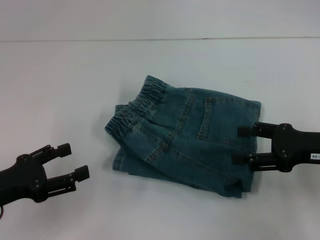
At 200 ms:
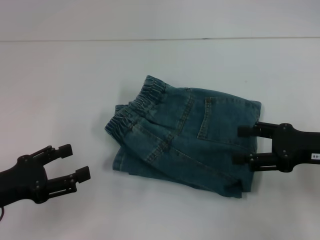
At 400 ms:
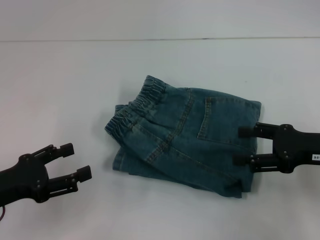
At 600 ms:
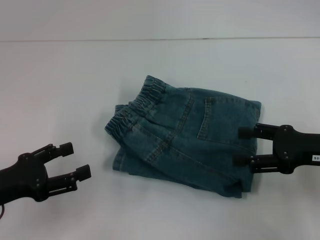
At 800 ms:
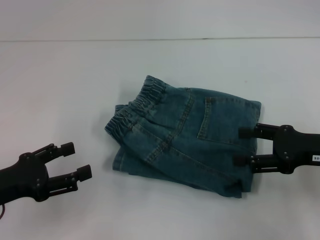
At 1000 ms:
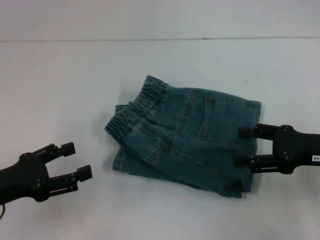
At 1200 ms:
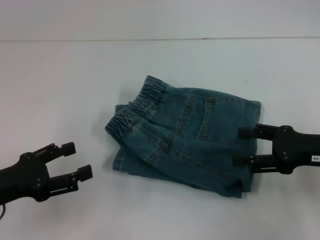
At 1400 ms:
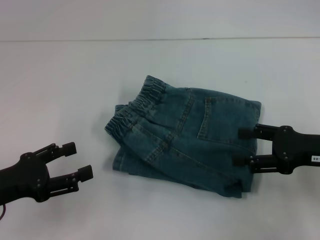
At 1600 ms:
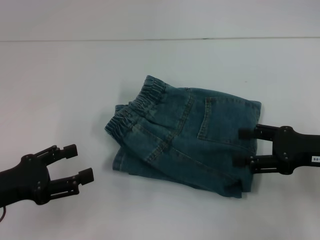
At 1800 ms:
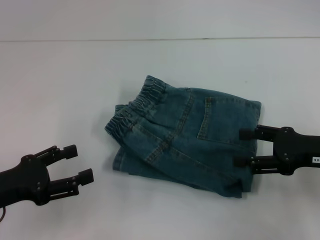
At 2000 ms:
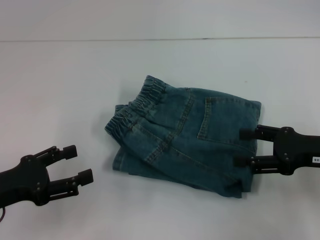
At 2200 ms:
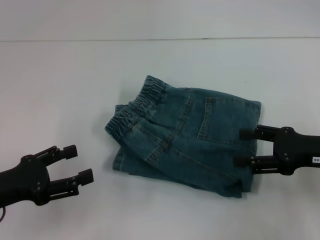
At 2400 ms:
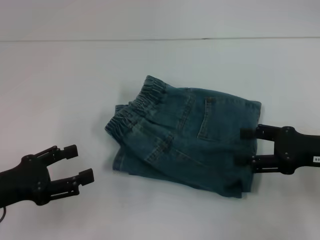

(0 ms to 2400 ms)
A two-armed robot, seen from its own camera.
0 ms - 2400 ms: The two grippers keep their place.

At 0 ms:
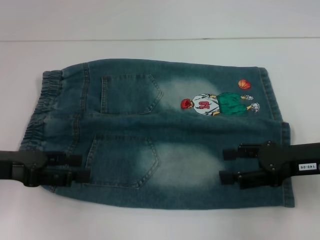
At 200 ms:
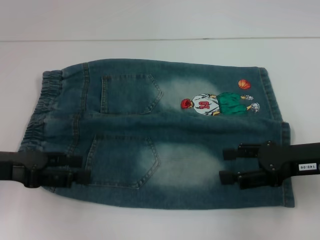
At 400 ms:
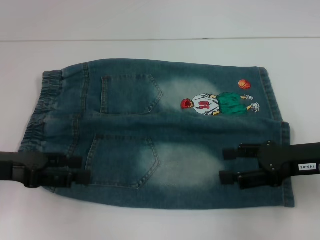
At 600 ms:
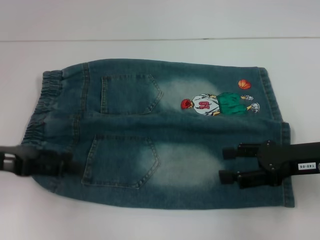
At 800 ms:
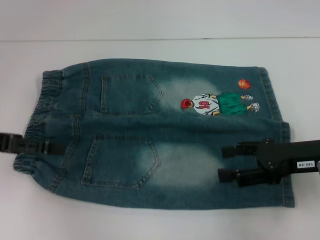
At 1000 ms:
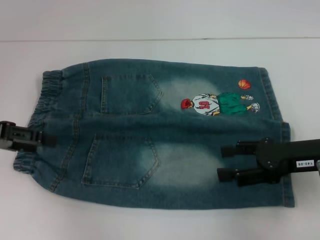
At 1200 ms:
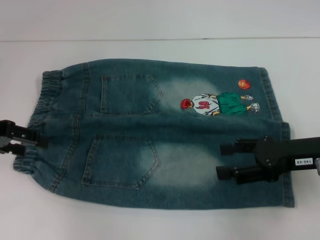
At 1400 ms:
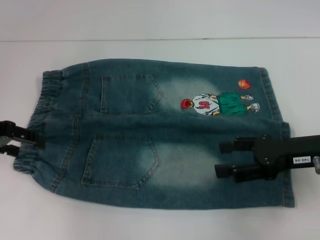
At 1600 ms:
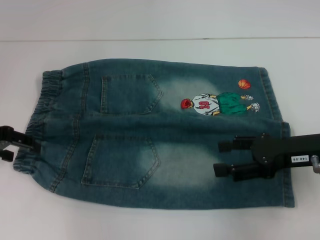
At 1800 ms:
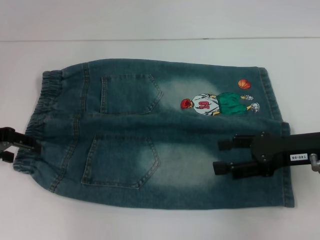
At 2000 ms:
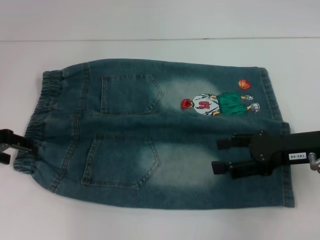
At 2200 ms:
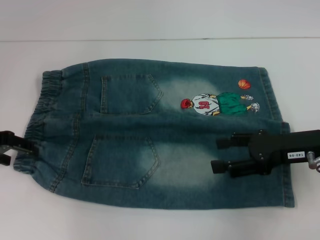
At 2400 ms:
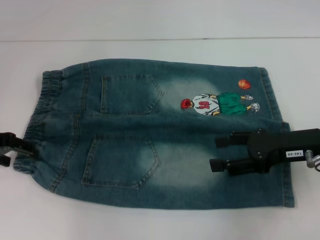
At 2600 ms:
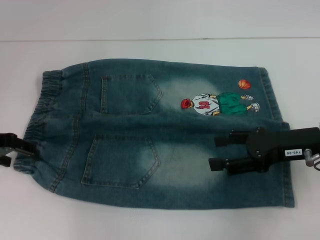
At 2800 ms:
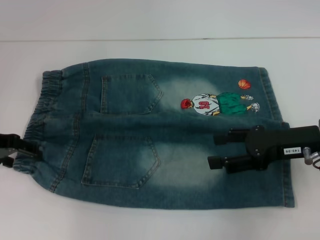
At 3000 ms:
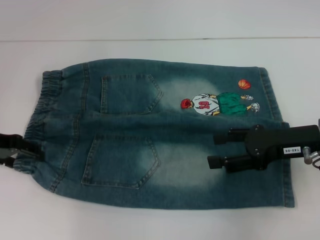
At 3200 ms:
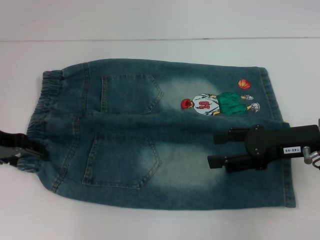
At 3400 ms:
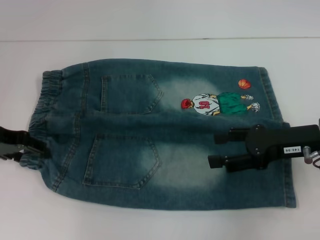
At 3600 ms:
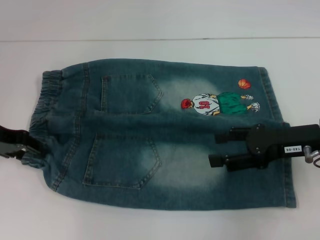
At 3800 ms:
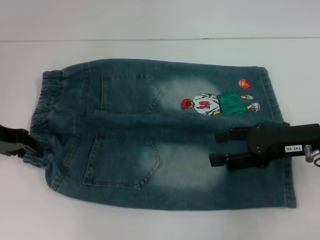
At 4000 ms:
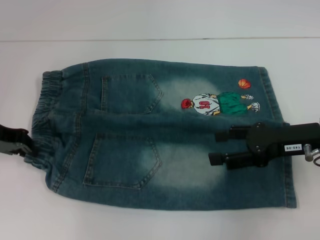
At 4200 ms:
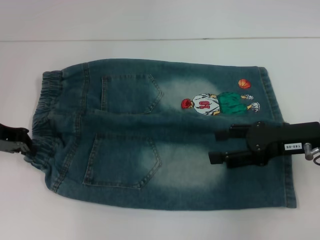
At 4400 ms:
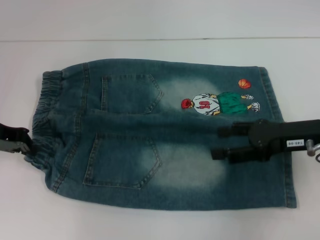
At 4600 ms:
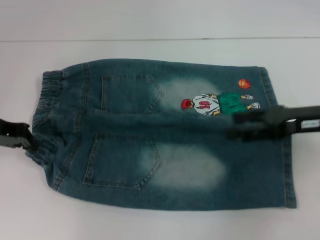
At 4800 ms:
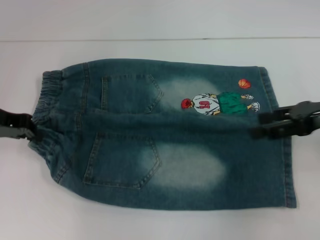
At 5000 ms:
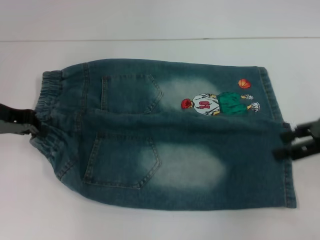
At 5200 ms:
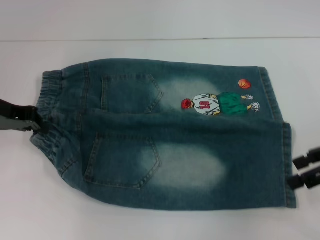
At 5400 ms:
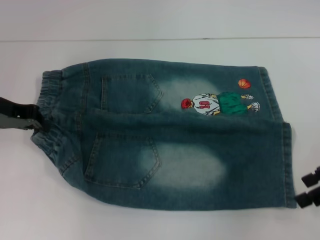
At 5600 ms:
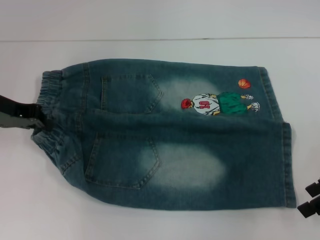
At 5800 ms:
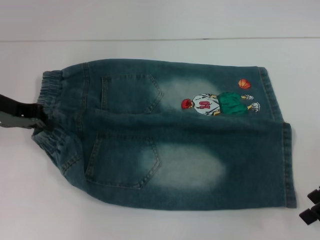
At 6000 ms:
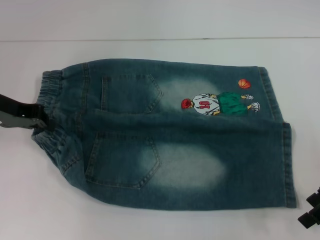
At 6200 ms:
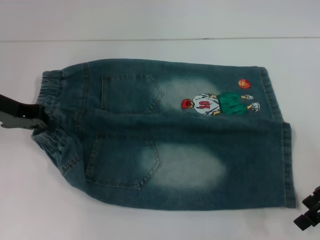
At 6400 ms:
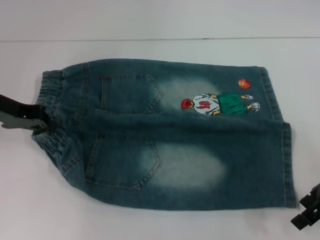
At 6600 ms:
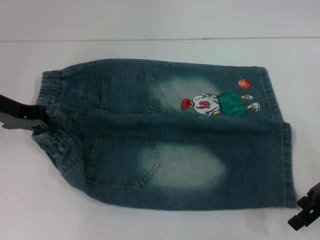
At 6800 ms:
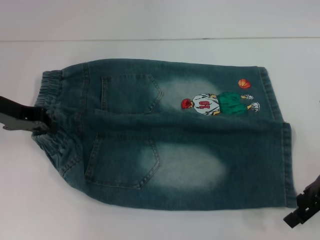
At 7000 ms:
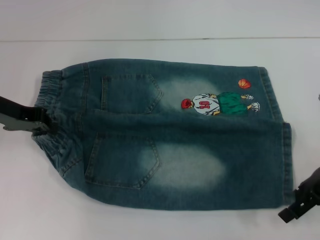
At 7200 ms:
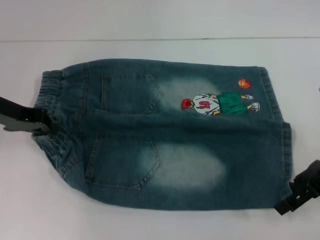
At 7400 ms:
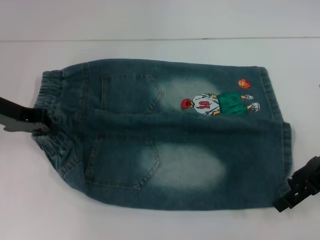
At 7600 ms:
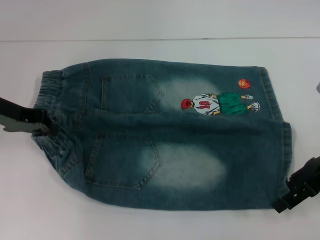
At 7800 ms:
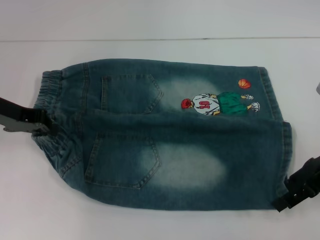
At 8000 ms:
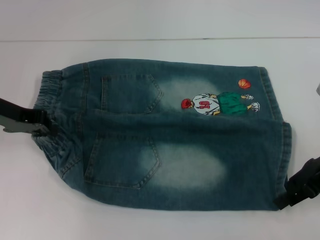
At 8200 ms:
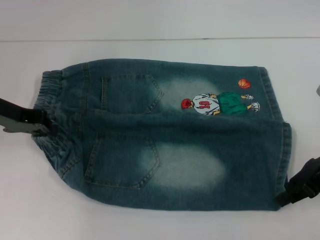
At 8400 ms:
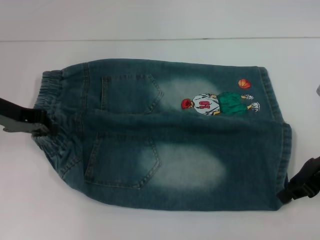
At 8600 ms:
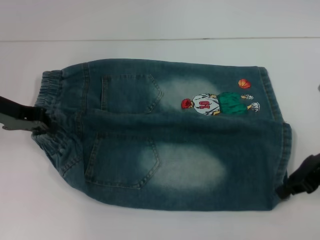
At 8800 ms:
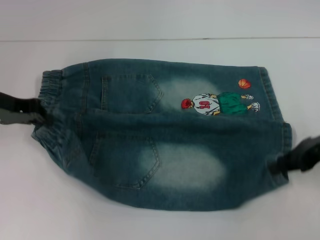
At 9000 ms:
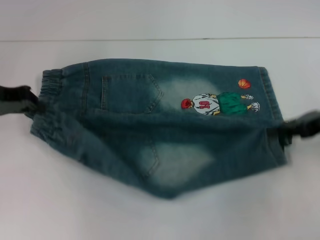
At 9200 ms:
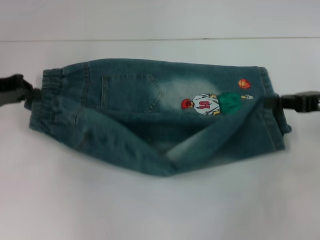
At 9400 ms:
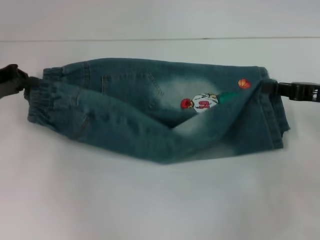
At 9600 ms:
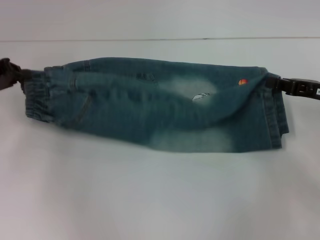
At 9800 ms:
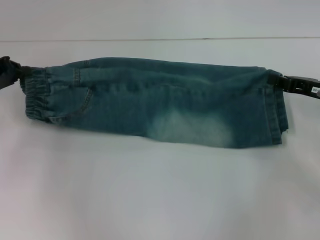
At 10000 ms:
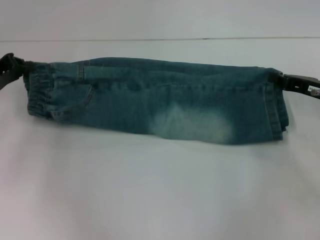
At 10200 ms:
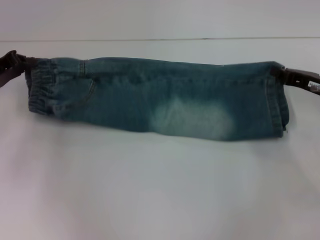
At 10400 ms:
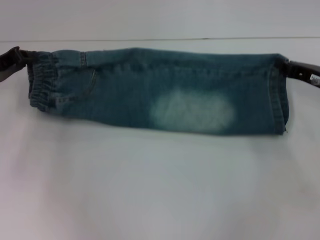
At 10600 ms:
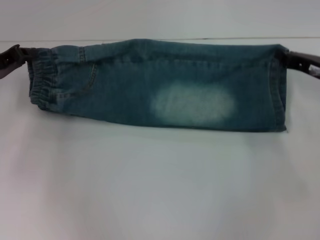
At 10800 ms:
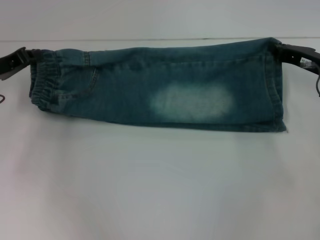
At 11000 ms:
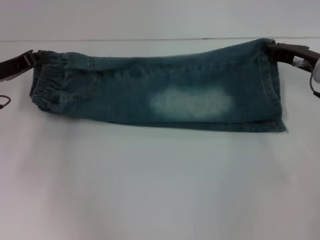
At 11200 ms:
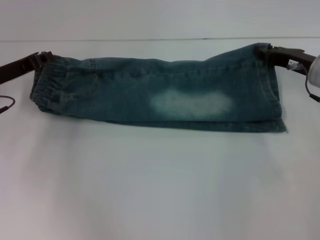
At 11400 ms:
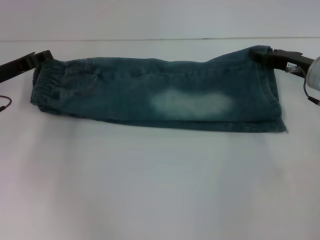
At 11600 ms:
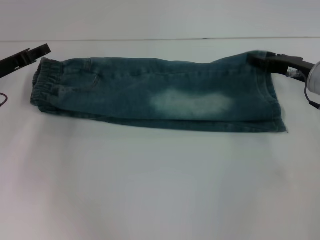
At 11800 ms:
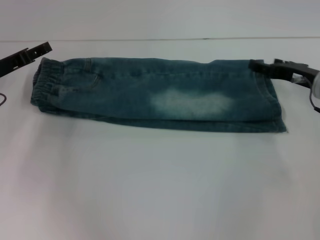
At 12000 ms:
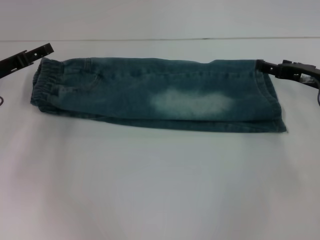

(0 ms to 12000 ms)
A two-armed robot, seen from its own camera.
Step, 0 ms - 4400 ms: Hold the lower left waistband with your left hand.
Step, 4600 ms - 8400 ms: Grab the lower right pant leg with your right hand.
Step, 8600 ms - 11600 ms: Fold upward with your right hand.
0 ms - 1600 ms: The left gripper shifts some 5 cm forward.
1600 ms - 3000 ms: The grippers move only a little.
3000 ms - 4400 ms: The left gripper closes.
4400 ms - 6000 ms: The right gripper shifts some 5 cm to the right.
6000 ms - 7600 ms: The grippers make only small movements.
7600 ms - 9000 ms: The right gripper closes up.
9000 ms - 10400 ms: The right gripper travels downward by about 5 cm.
10400 ms - 12000 ms: The right gripper opens; the left gripper opens its fingers.

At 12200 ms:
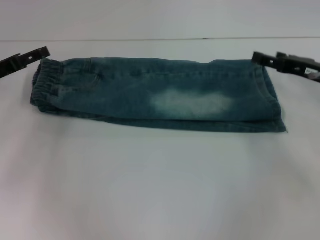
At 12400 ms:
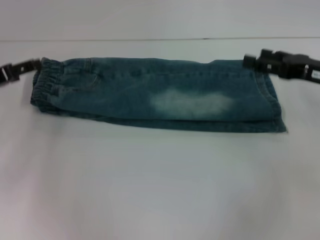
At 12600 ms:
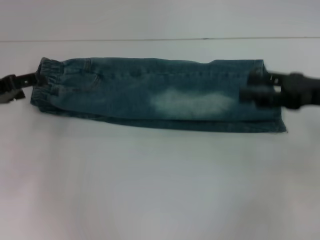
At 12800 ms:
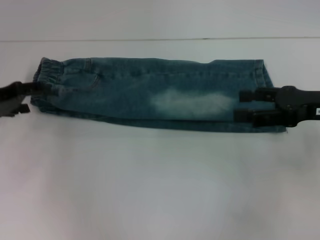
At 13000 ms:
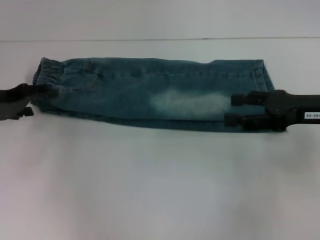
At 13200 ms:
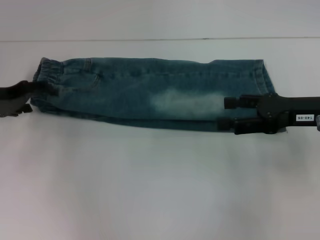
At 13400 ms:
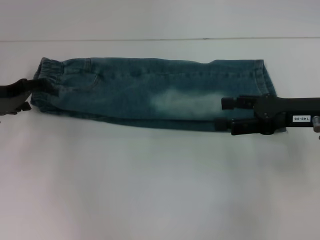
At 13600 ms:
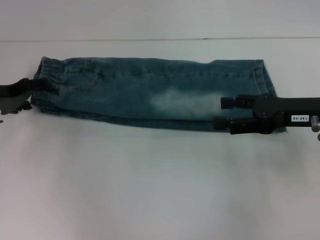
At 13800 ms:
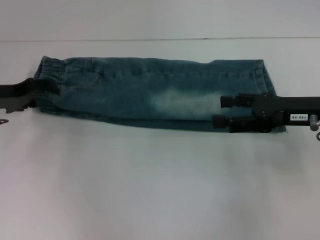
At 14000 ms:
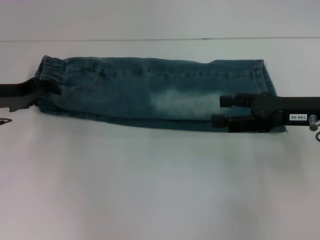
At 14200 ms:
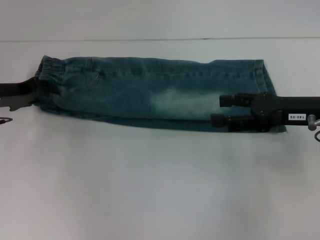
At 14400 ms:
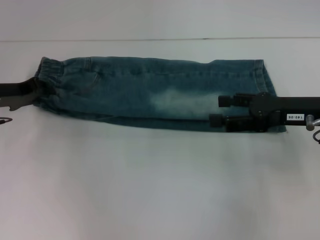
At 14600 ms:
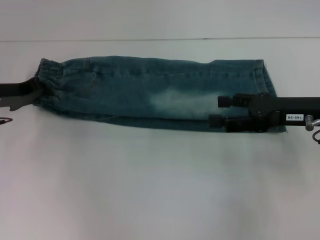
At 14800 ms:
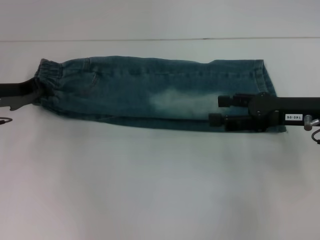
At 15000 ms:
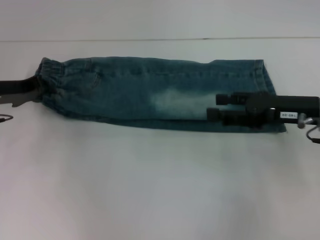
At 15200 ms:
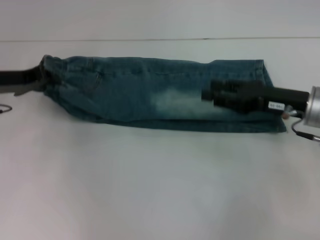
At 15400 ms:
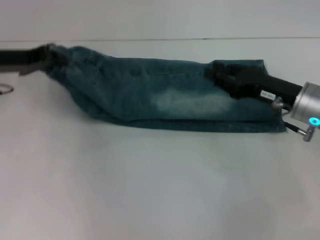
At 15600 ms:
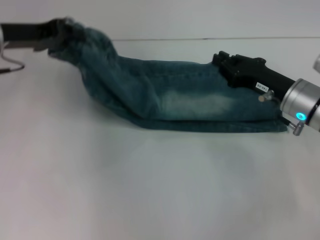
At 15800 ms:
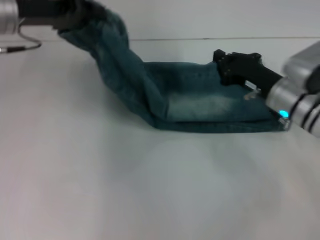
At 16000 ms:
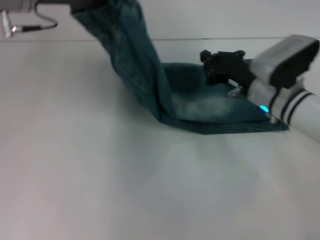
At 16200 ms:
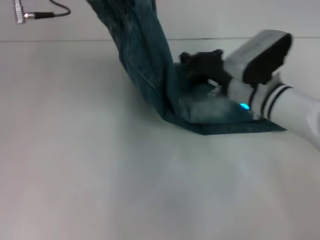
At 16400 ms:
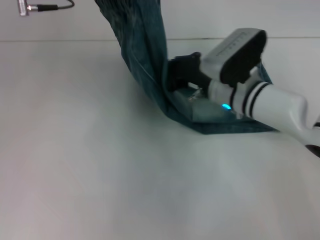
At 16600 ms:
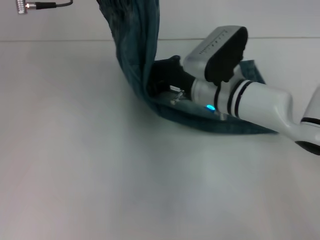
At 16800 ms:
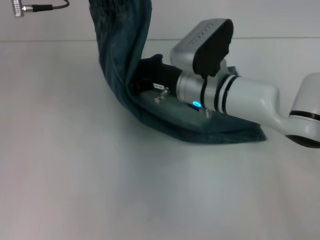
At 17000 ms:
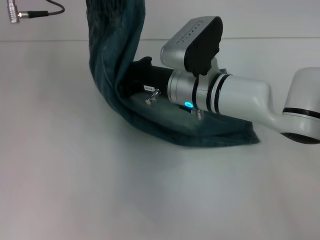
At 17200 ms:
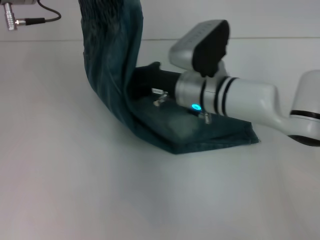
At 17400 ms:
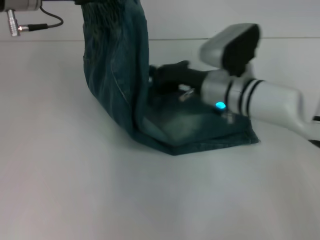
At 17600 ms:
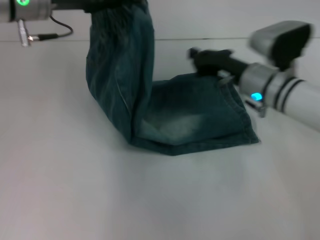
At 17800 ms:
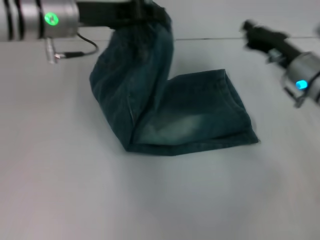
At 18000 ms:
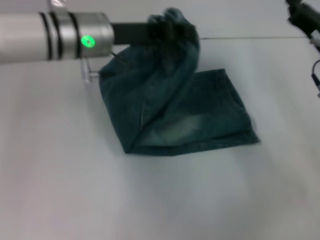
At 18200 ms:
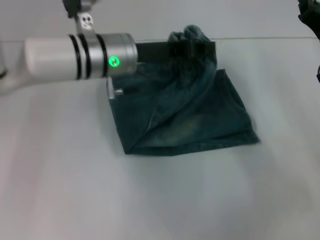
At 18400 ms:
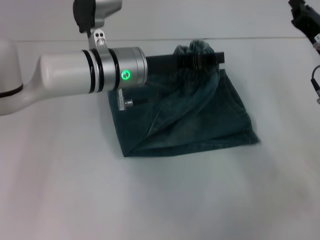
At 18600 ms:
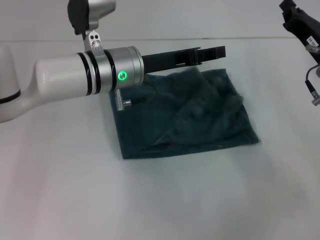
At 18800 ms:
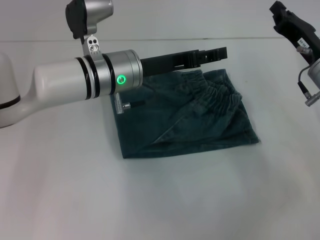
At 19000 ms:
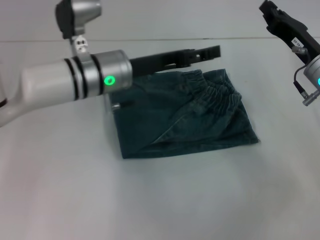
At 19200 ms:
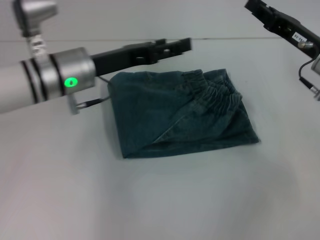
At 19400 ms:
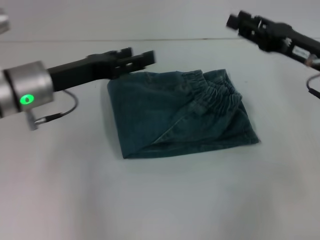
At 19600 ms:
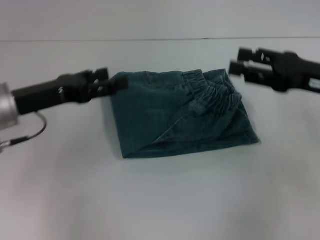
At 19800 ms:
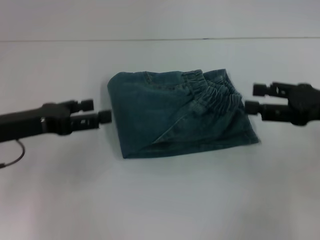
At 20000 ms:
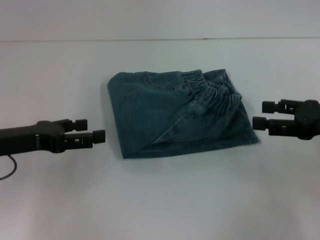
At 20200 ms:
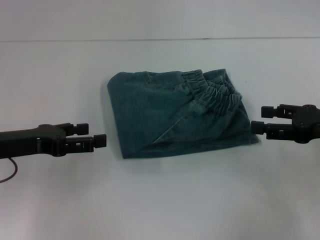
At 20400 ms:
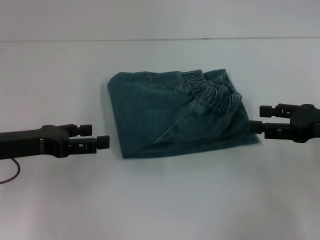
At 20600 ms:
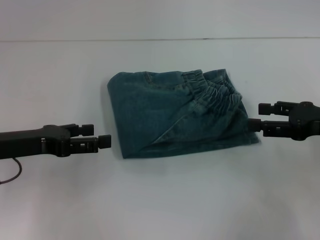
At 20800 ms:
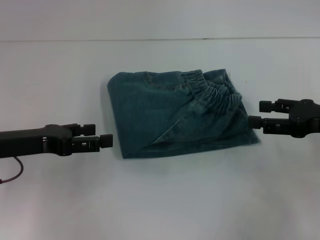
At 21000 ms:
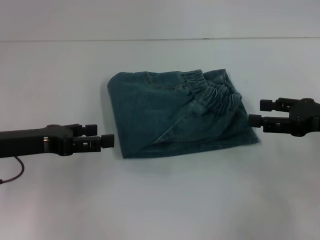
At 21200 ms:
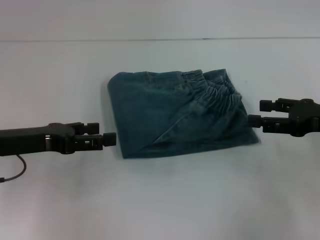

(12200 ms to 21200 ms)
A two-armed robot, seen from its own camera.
Step, 12200 ms - 14800 ms: Hold the waistband with your left hand.
Step, 15000 ms - 17000 ms: Press the middle of the pants with your right hand.
Step, 17200 ms - 18800 ms: Fold to the right with your left hand.
12200 ms - 13800 ms: The right gripper shifts roughly 5 cm backward.
13800 ms - 15200 ms: The left gripper closes.
15200 ms - 16600 ms: The right gripper heads to the left, covering about 15 cm, and closes; the left gripper heads upward and to the right, covering about 20 cm.
16600 ms - 18200 ms: The right gripper travels to the right by some 20 cm, while the left gripper moves downward and to the right, about 15 cm.
18200 ms - 19800 ms: The right gripper moves backward, about 5 cm, and opens, while the left gripper shifts about 20 cm to the left and backward, and opens its fingers.
19800 ms - 21200 ms: The grippers stay close to where they were, moving slightly.
